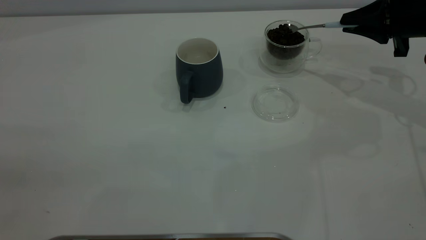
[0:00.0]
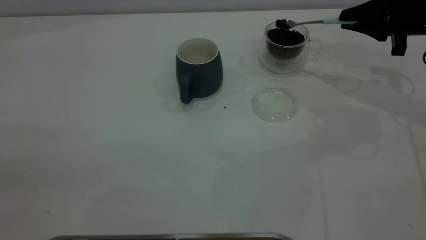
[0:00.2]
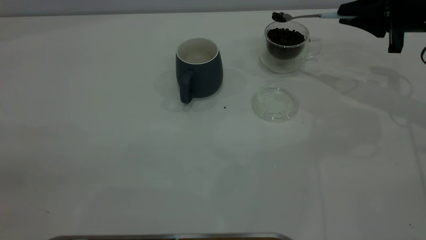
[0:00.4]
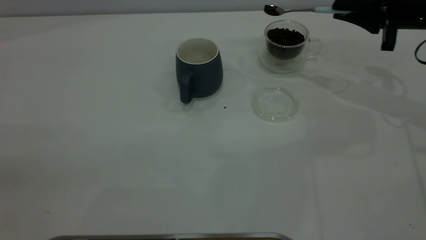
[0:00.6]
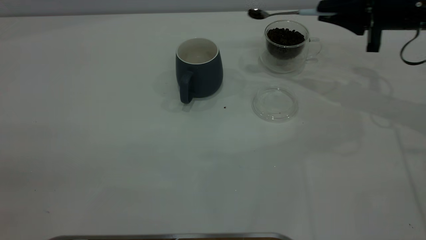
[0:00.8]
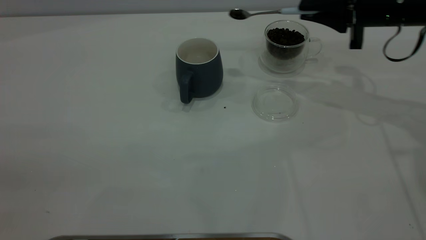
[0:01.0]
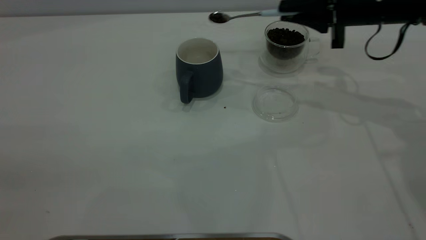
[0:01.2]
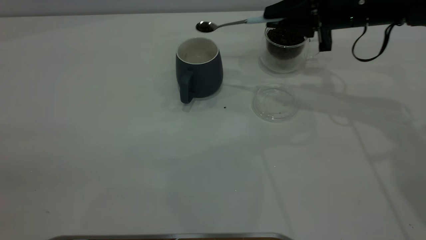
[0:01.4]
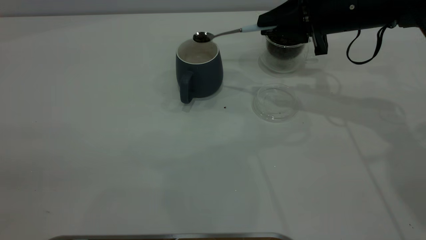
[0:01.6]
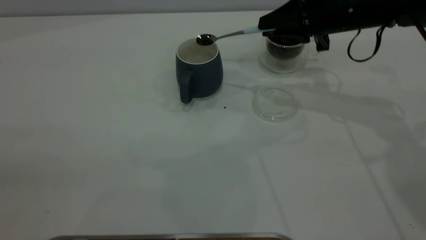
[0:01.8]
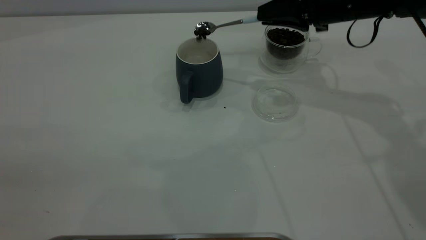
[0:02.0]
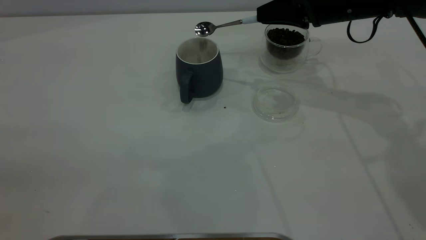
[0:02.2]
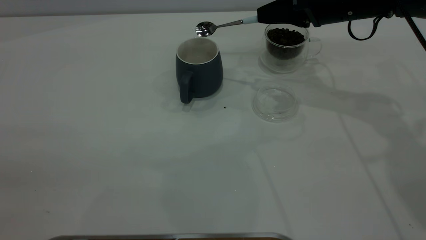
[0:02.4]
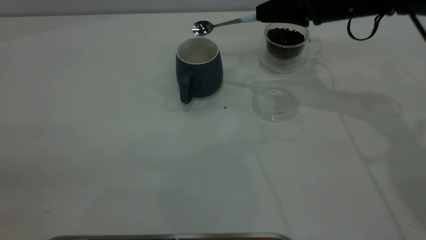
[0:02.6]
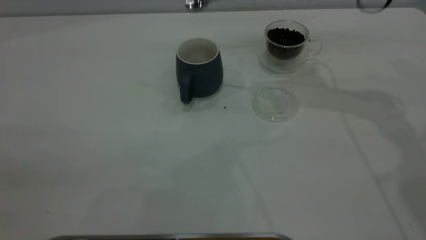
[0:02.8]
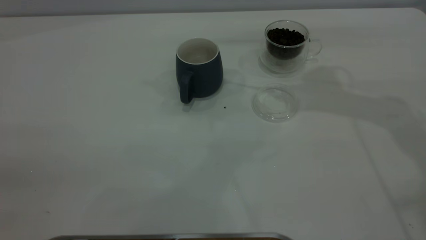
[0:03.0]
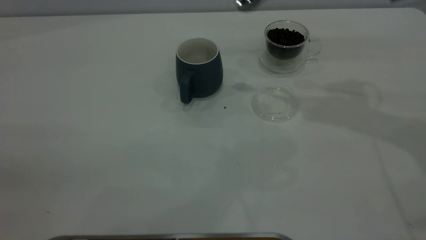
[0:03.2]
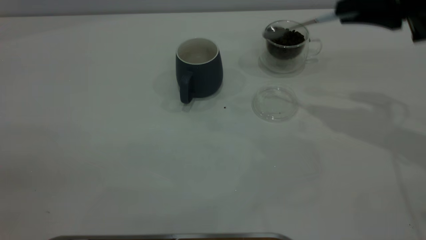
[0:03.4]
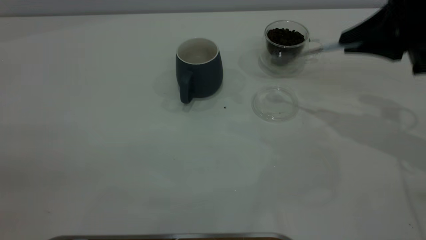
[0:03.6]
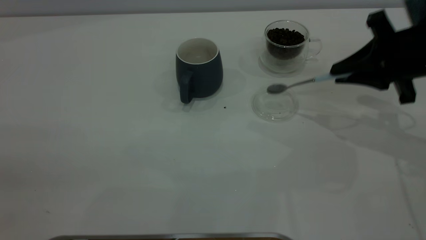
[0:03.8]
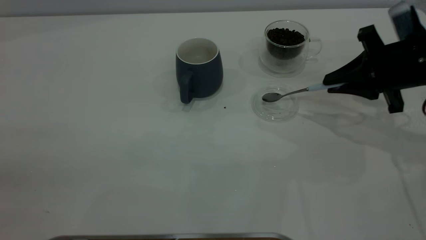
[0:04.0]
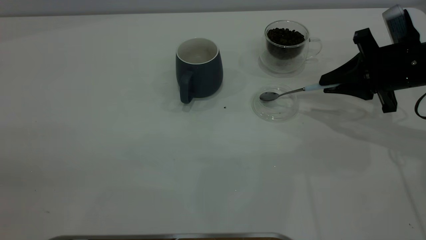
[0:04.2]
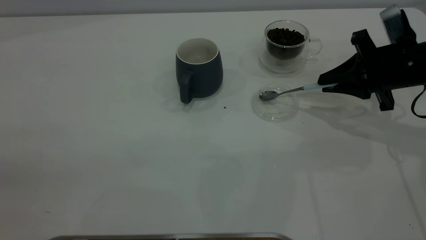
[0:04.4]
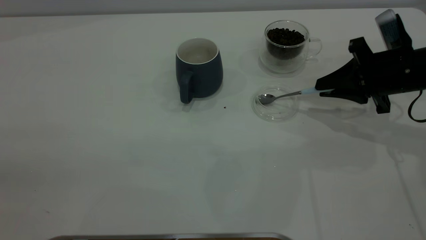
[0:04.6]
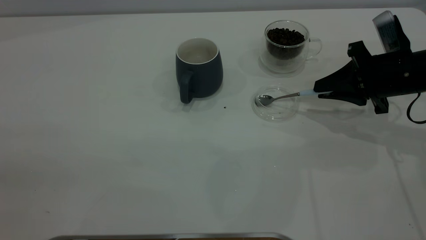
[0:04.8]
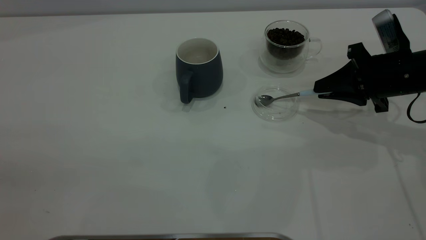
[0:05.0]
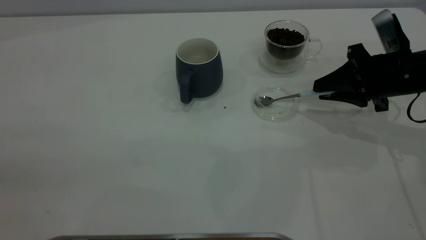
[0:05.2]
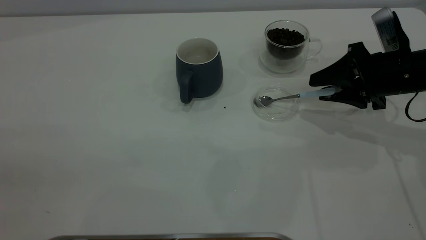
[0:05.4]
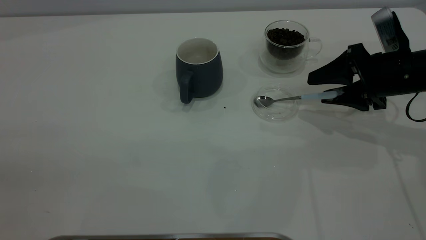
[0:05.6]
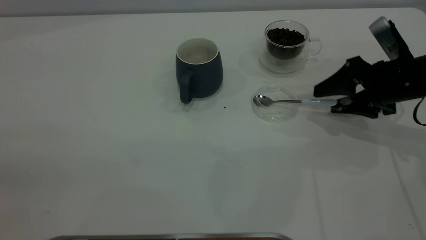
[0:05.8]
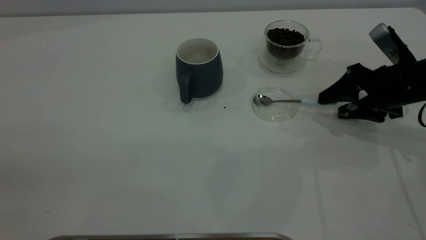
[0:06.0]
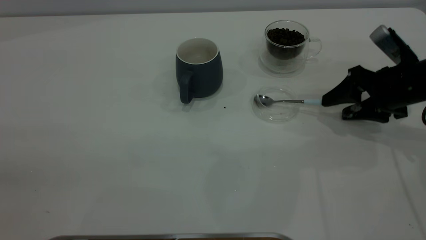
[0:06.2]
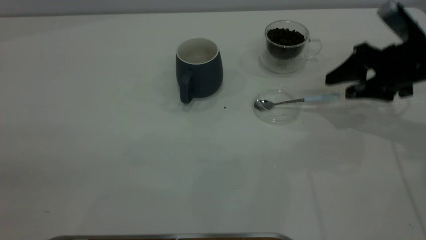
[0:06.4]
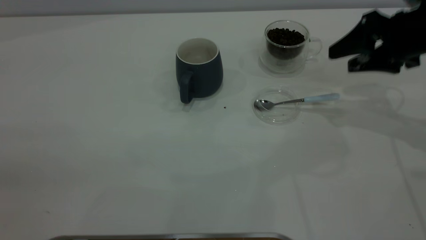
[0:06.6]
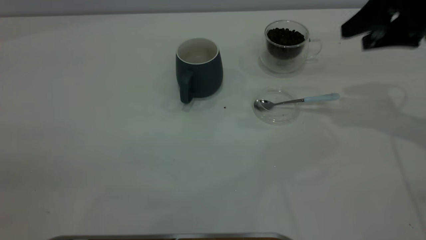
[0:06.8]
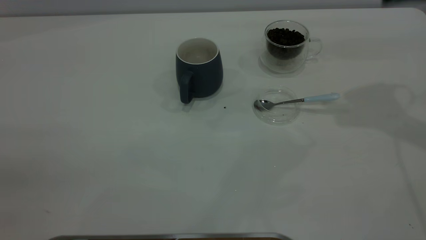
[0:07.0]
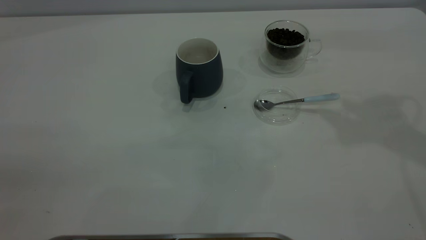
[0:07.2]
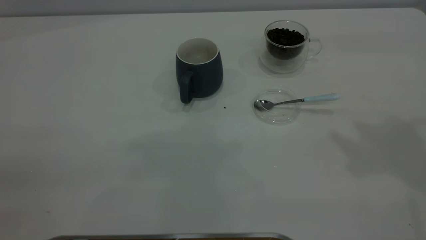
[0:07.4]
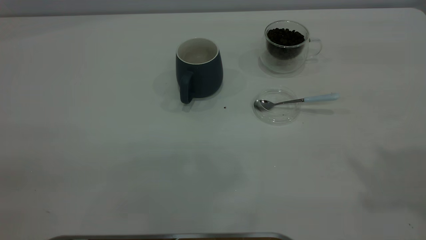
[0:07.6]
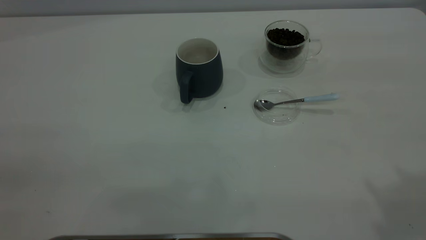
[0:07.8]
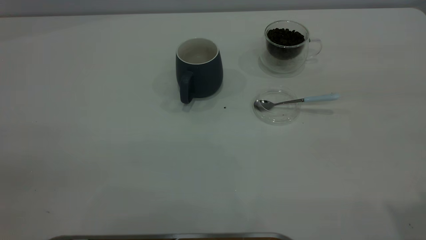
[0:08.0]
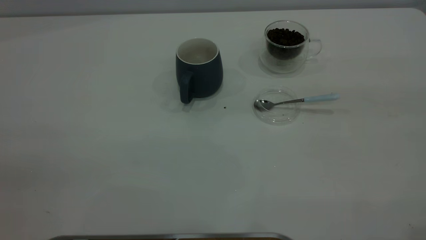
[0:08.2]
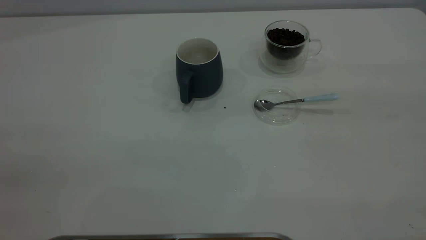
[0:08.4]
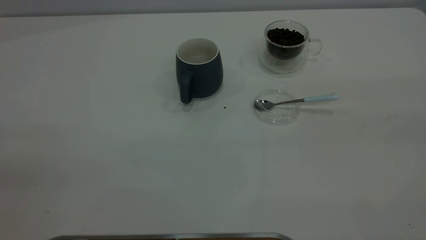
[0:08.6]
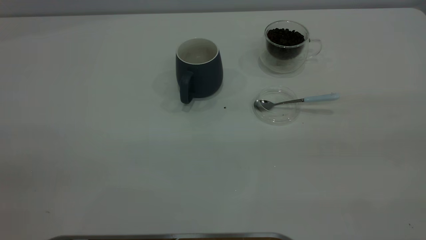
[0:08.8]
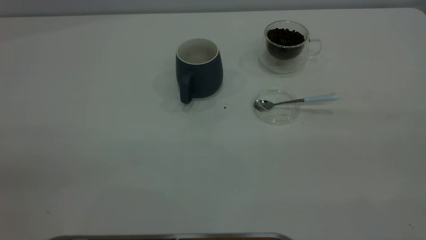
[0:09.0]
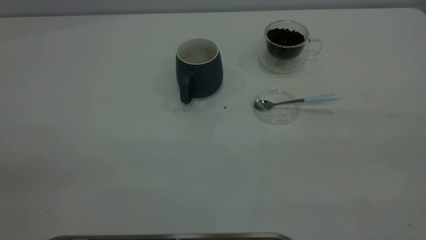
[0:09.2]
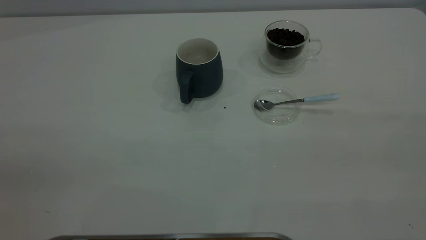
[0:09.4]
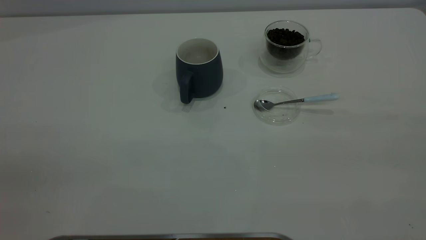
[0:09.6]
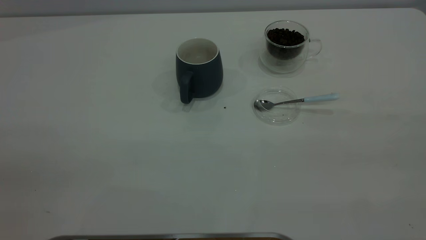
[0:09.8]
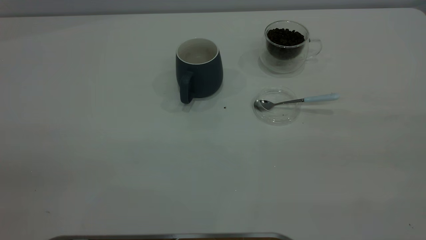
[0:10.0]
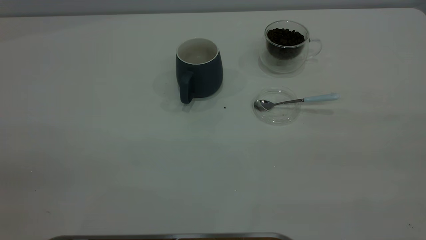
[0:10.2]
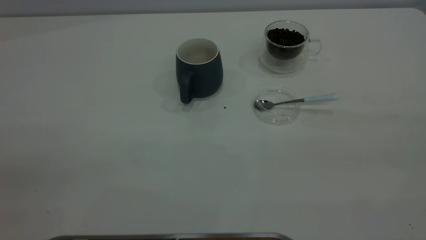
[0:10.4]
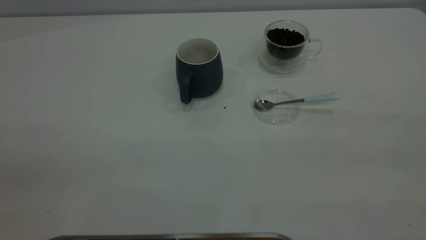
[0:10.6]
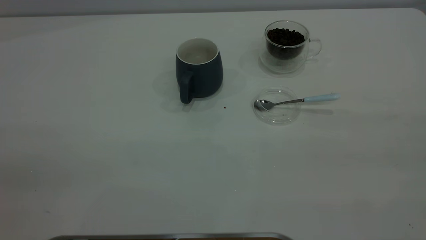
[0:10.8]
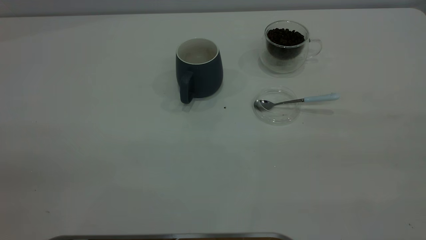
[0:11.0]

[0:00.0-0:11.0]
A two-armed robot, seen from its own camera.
Task of the whole recording: the left gripper place the grey cup in the center of the table, the right gripper take the blue spoon from the cup lid and scoop out the coffee beans from the coffee cup and put them into the grey cup, the right gripper put the spoon back into the cup lid.
Step, 0:00.0 to 0:02.6: Scoop a spoonful of beans into the cup.
Step, 0:02.8 to 0:06.4: Place the spoon back in its original place.
0:00.0 to 0:01.6: The right gripper heads to the left, covering approximately 15 cm.
0:01.6 to 0:03.2: The right gripper is displaced upward, backward and to the right by roughly 15 cm.
0:03.2 to 0:04.8: The right gripper is displaced downward by roughly 15 cm.
0:04.8 to 0:06.2: The right gripper opens its fingers.
0:06.2 to 0:07.8: The right gripper moves upward and backward, about 40 cm.
0:09.4 to 0:11.0: Neither gripper changes place.
